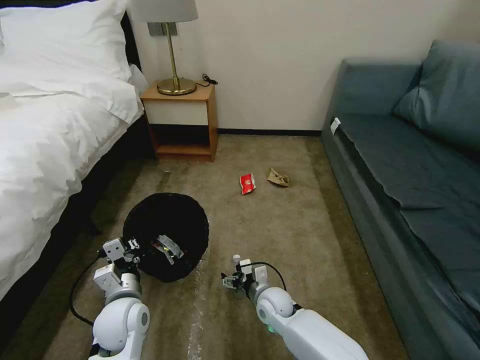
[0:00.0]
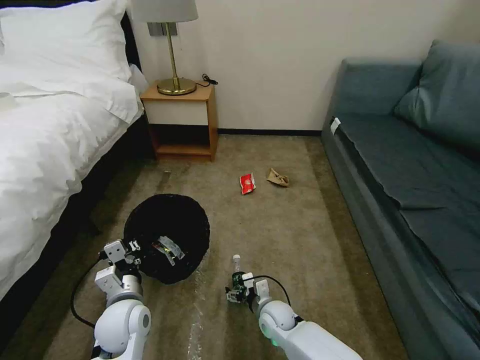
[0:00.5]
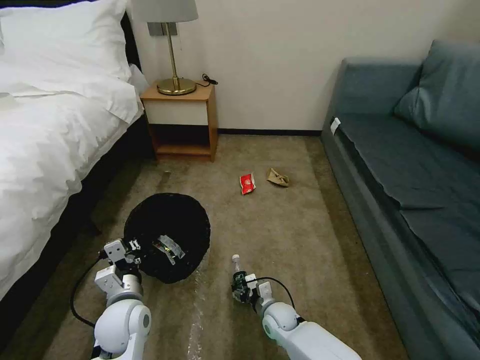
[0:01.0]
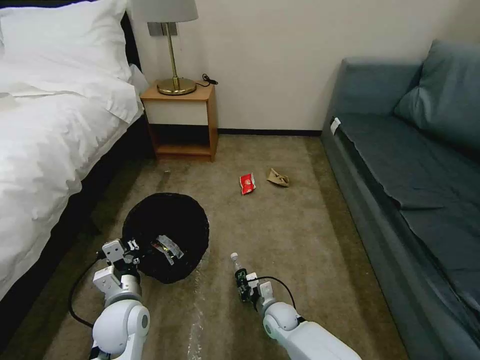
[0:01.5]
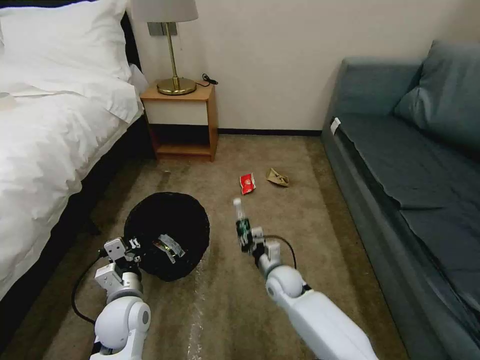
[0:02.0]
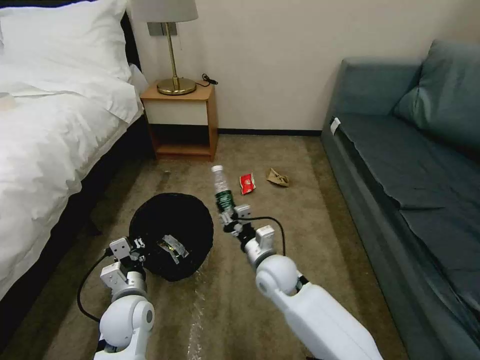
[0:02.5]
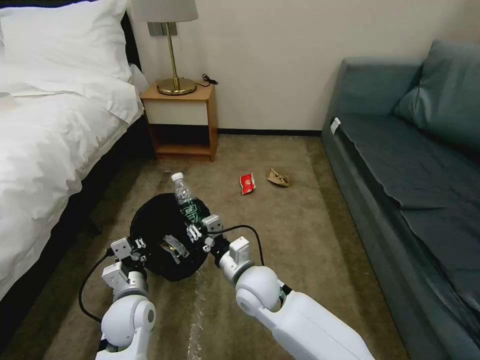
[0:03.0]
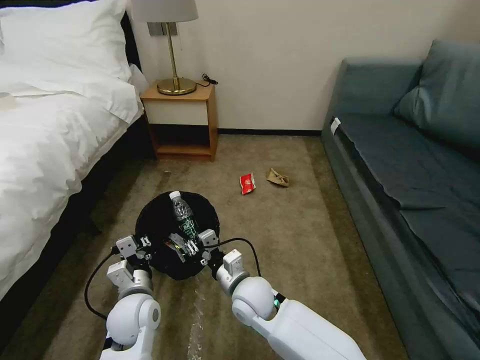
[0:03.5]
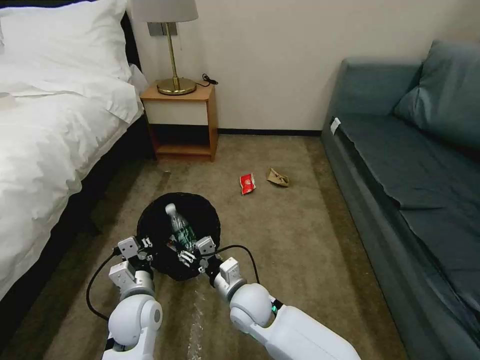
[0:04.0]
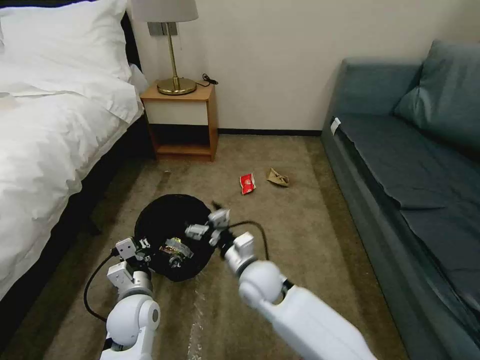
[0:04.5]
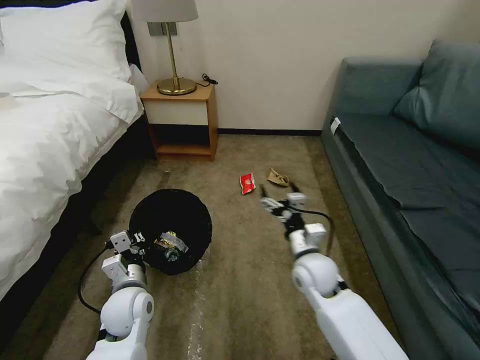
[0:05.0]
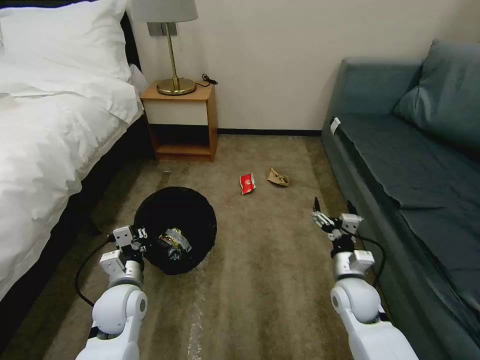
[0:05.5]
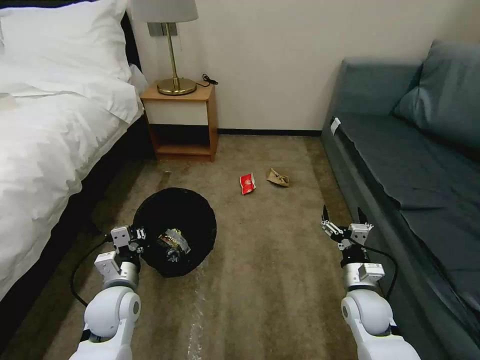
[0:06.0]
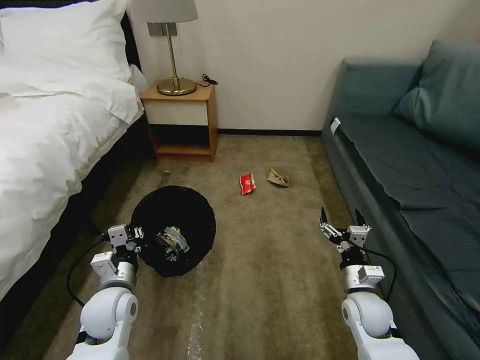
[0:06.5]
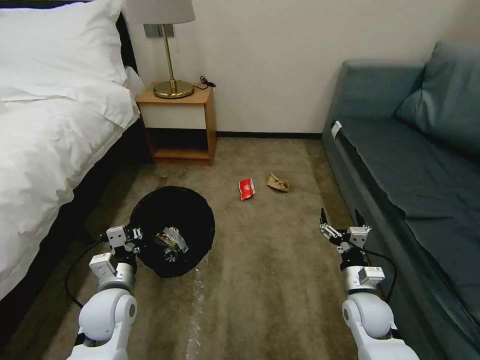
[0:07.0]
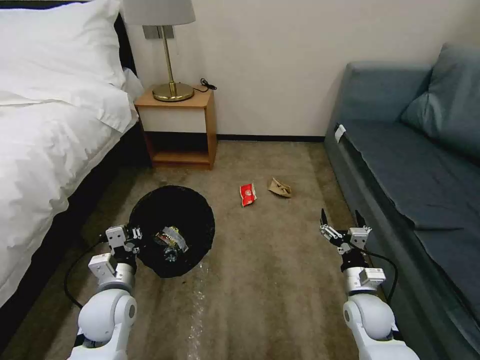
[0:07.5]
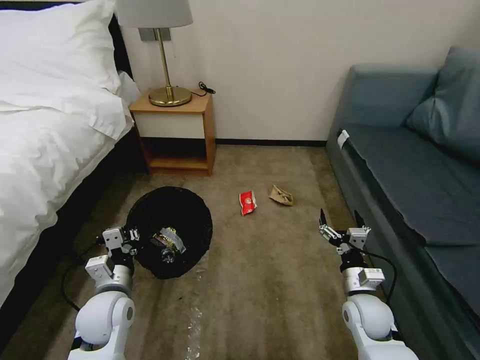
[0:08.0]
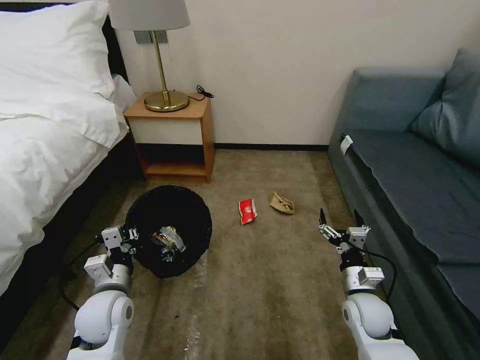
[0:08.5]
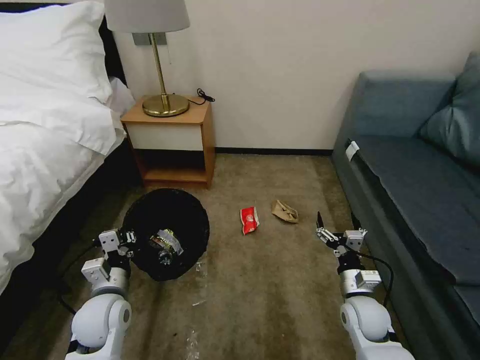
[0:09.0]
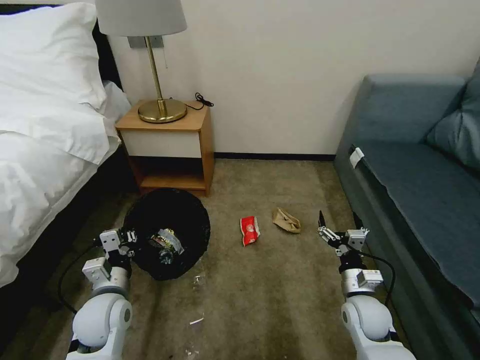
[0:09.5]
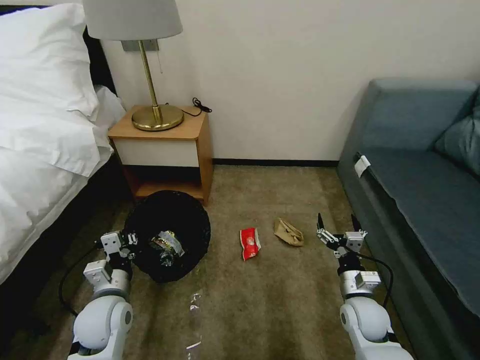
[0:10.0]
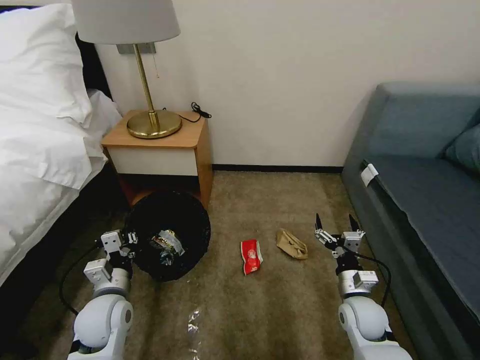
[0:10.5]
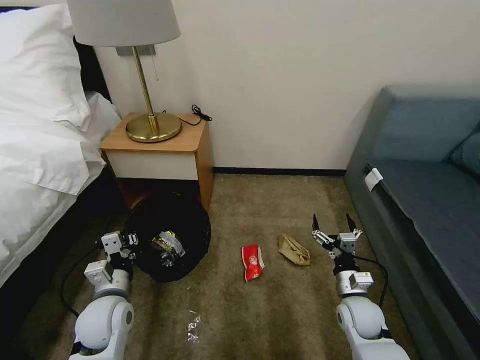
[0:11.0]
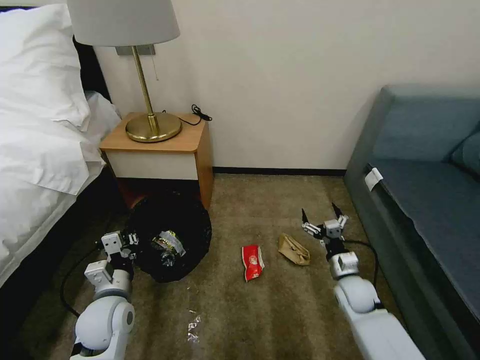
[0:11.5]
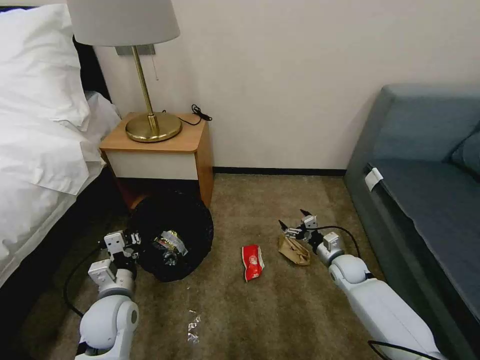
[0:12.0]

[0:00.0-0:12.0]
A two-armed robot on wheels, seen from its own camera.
Task of the whole recording: Pick up the trash bin, then pick up the garbage on the floor and place it into the trash bin.
0:00.0 to 0:02.0: The right gripper closes up.
0:02.0 to 0:04.0: The right gripper heads to the left, upward and backward, covering roughly 15 cm.
0:04.0 to 0:06.0: The right gripper travels to the right by approximately 25 cm, and opens its fingers; the left gripper ends up approximately 5 cm from where it was.
0:06.0 to 0:08.0: The grippers move only a little.
0:10.0 to 0:12.0: The right gripper shifts roughly 15 cm forward.

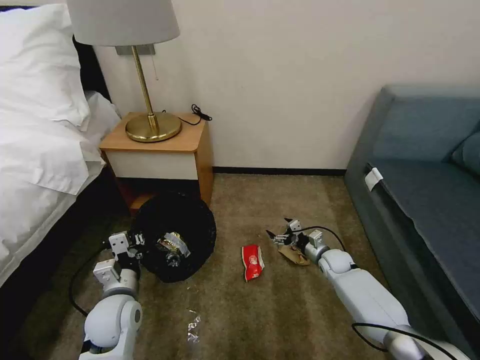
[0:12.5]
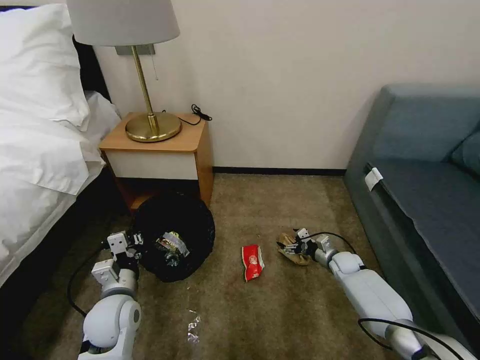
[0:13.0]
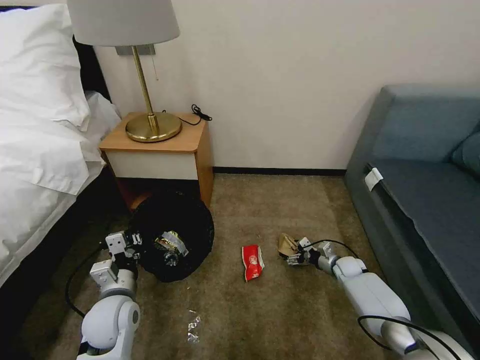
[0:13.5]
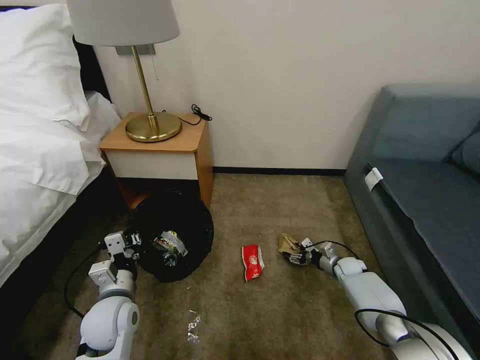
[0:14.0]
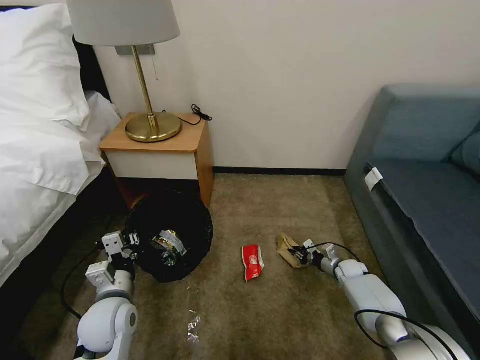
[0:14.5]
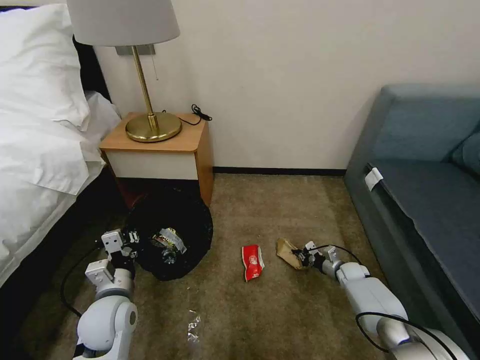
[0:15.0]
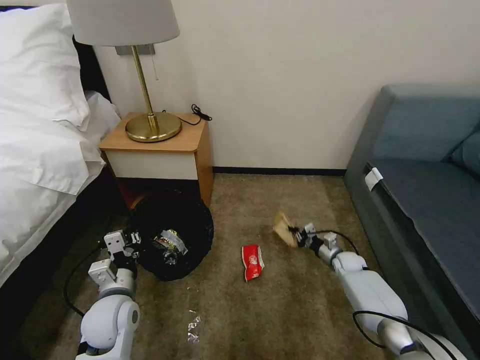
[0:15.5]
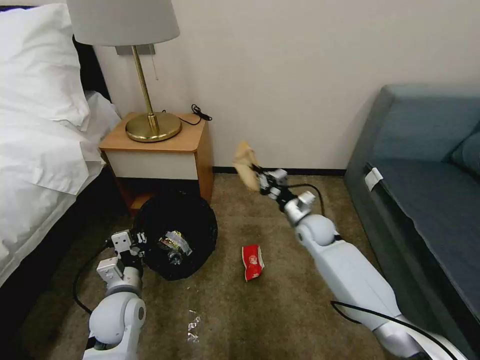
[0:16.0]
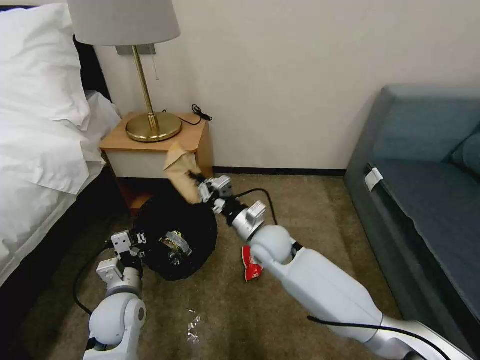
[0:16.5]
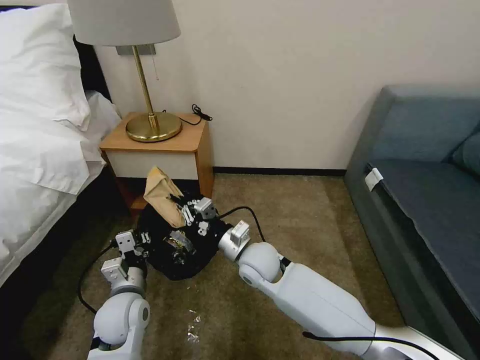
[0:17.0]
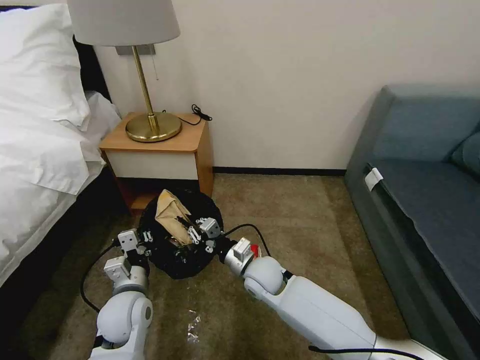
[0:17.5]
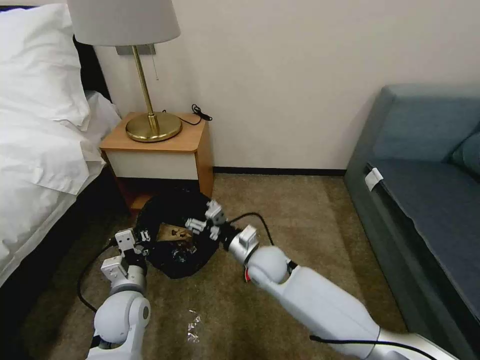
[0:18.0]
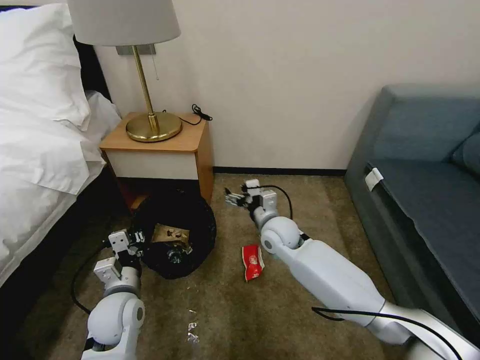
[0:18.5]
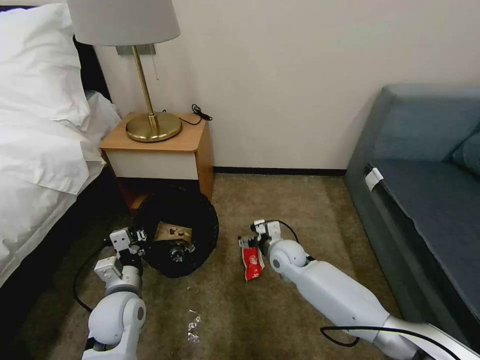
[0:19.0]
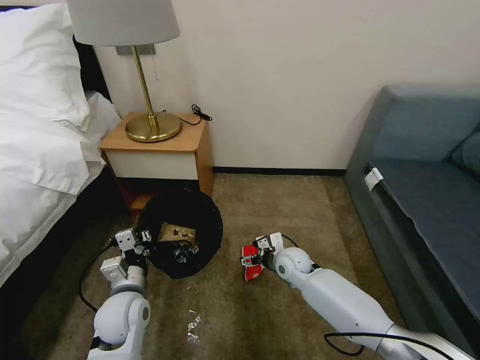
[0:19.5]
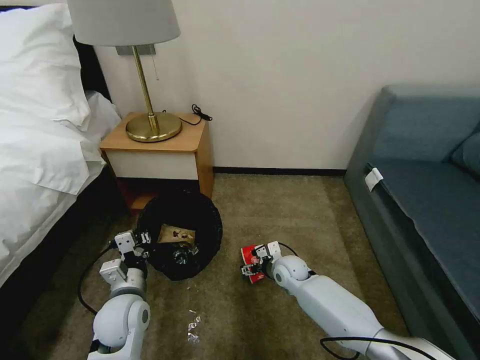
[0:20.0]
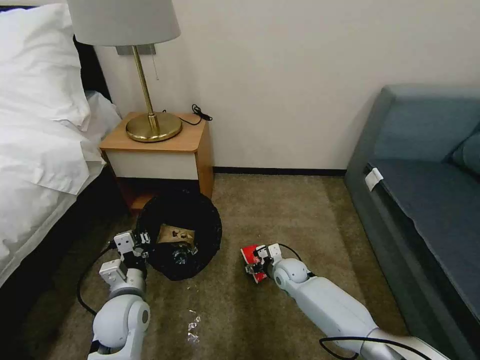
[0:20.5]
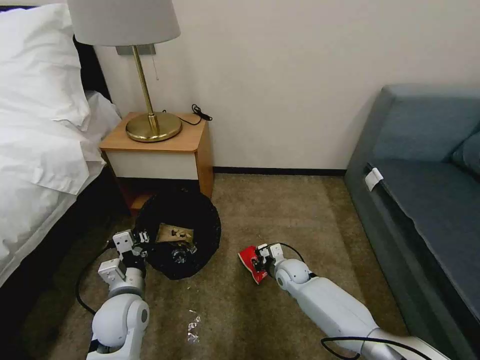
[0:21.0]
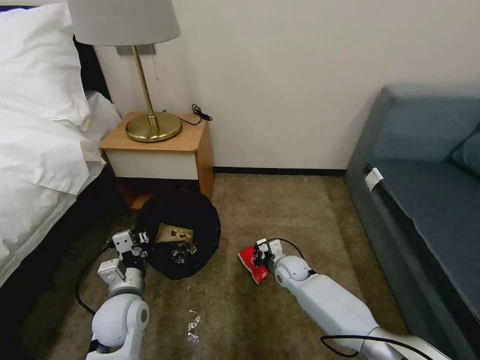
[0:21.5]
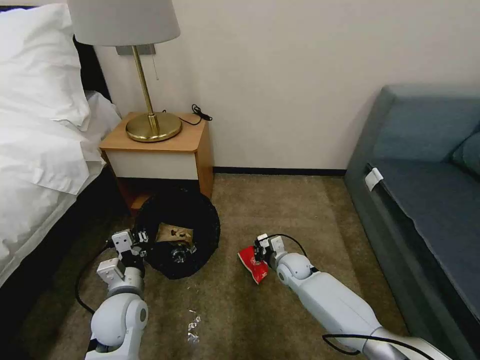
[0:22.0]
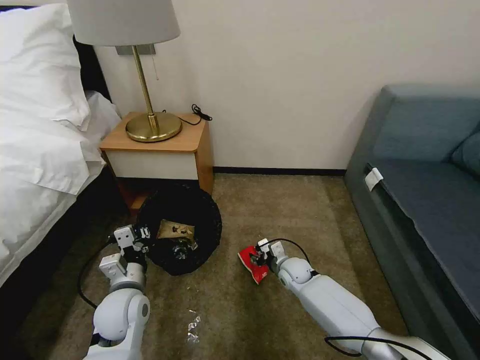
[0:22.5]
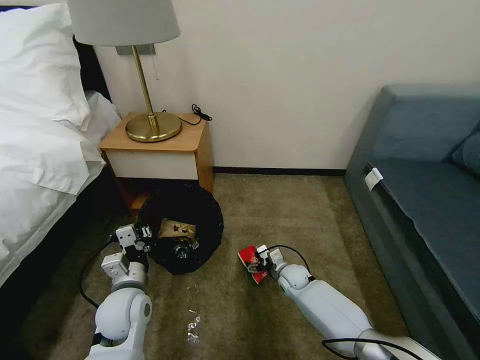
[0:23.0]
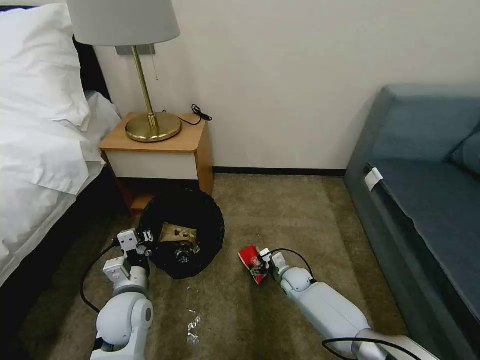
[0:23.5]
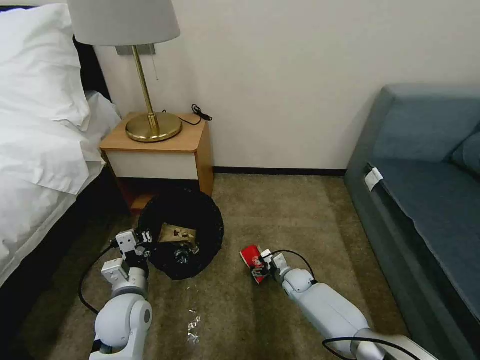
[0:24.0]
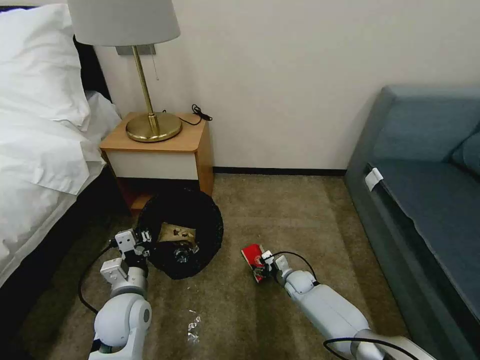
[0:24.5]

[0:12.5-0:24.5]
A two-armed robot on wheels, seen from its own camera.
Task of the whole recording: Pick up the trash bin, then pick up the garbage on the floor and place it into the trash bin.
0:12.5 to 0:14.5: The right gripper goes about 10 cm to the right and downward, and closes up.
0:14.5 to 0:16.5: The right gripper heads to the left and upward, covering about 40 cm.
0:16.5 to 0:18.5: The right gripper opens up.
0:18.5 to 0:20.5: The right gripper moves downward, about 15 cm.
0:20.5 to 0:22.5: The right gripper closes, then opens again.
0:22.5 to 0:24.5: The right gripper travels downward by roughly 5 cm.

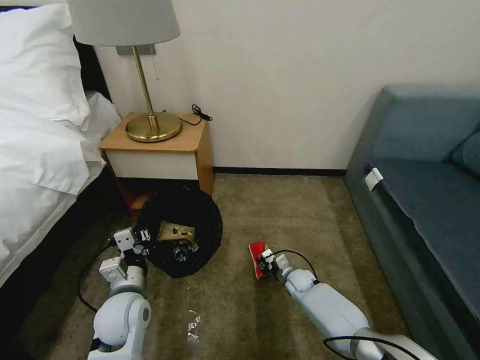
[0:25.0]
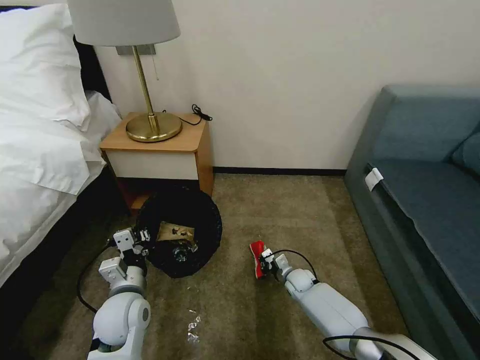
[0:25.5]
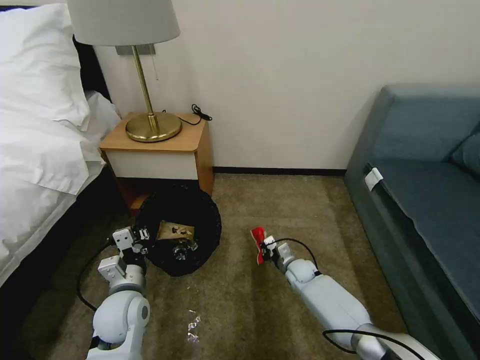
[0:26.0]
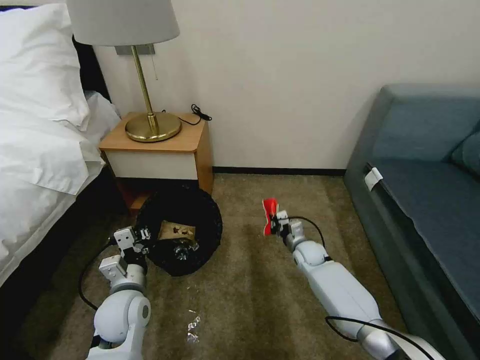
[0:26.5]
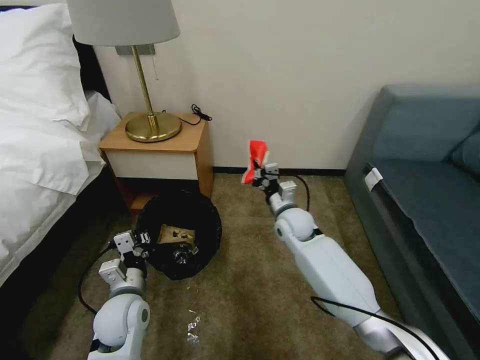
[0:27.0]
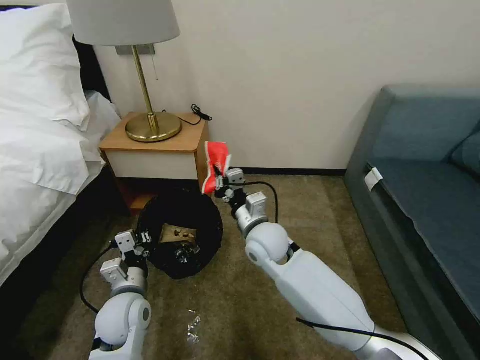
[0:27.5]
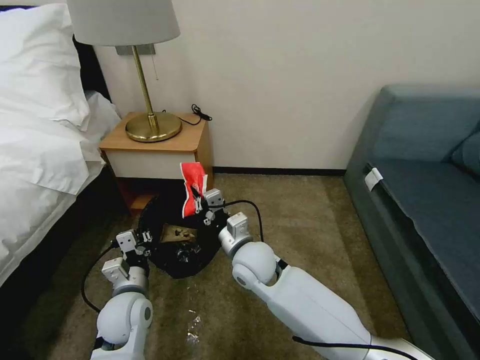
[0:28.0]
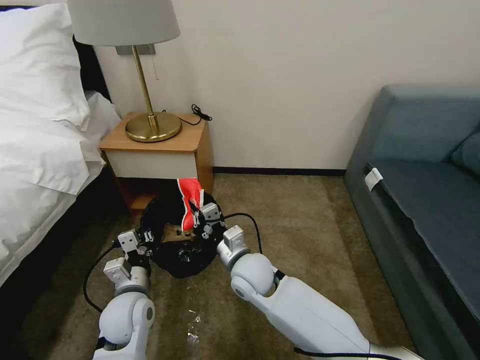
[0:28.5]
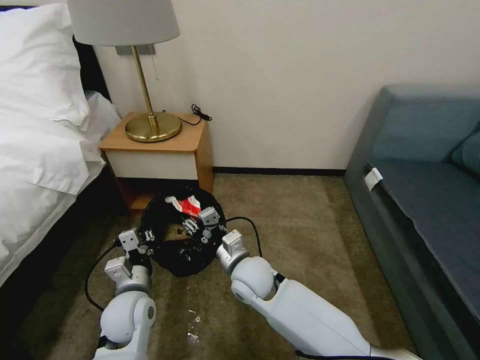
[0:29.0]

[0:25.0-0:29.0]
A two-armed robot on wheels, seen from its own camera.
Task of the whole recording: Pick up the trash bin, then pick up the garbage on the floor and place it into the trash bin.
0:25.0 to 0:27.0: The right gripper travels upward by roughly 25 cm.
0:27.0 to 0:29.0: The right gripper is displaced backward and to the left by roughly 20 cm, and opens.
